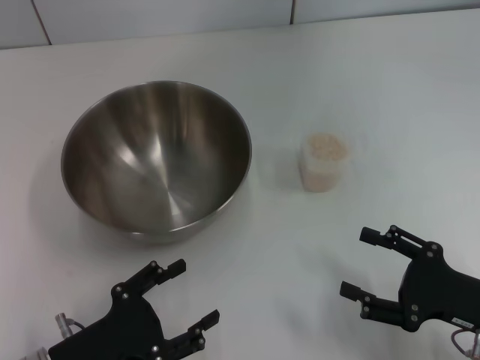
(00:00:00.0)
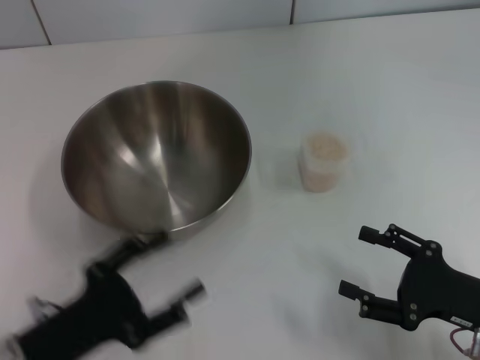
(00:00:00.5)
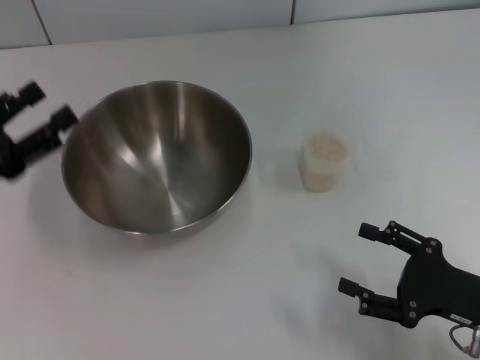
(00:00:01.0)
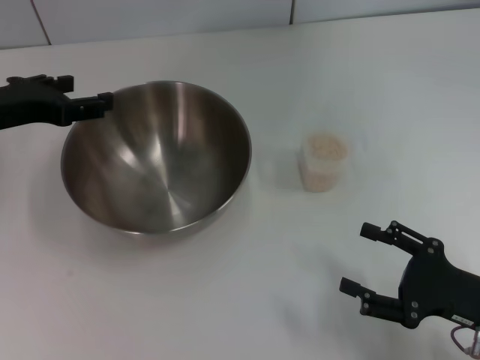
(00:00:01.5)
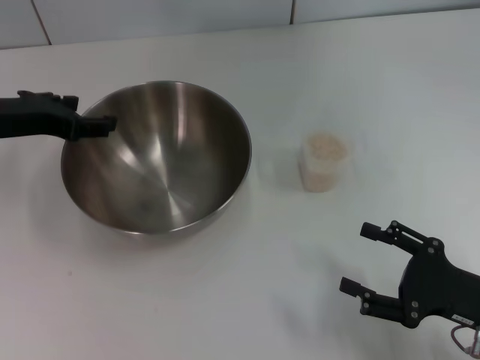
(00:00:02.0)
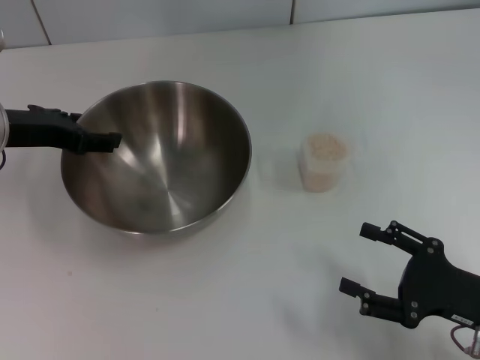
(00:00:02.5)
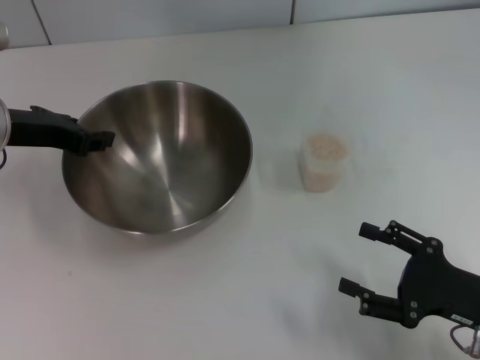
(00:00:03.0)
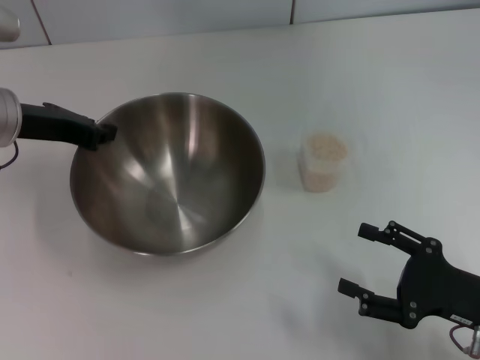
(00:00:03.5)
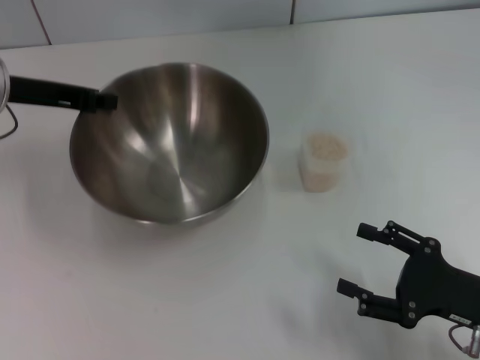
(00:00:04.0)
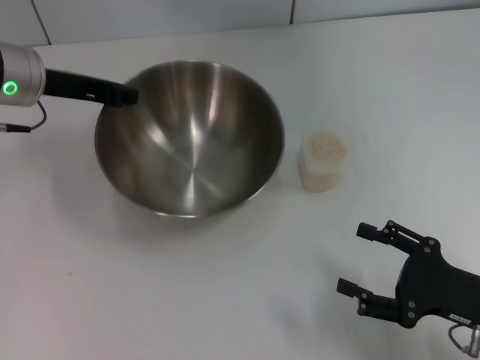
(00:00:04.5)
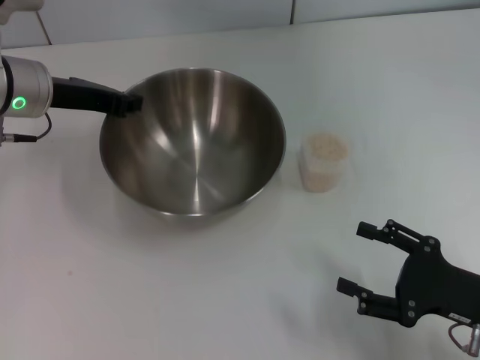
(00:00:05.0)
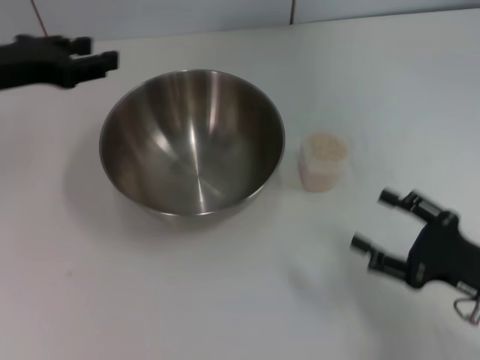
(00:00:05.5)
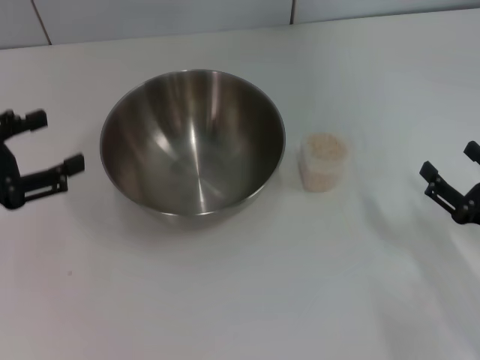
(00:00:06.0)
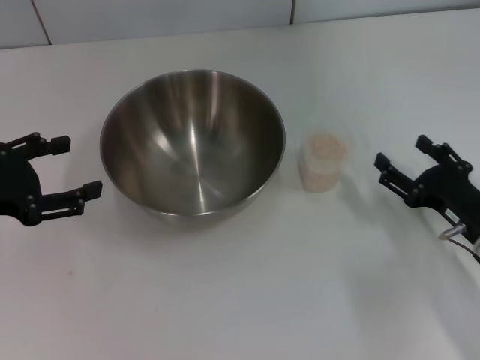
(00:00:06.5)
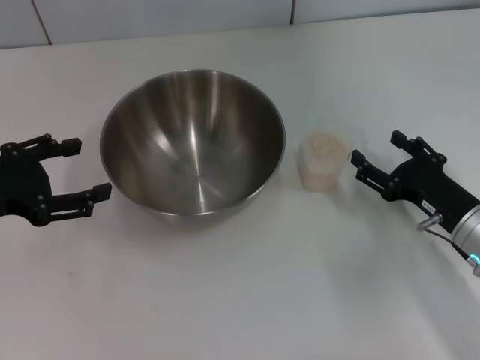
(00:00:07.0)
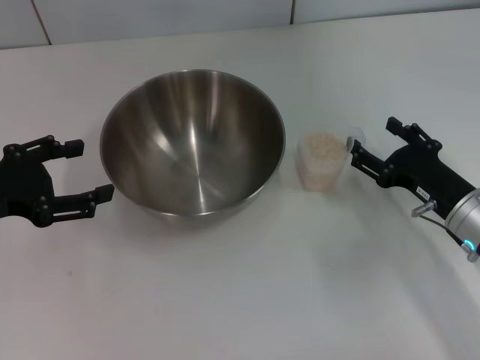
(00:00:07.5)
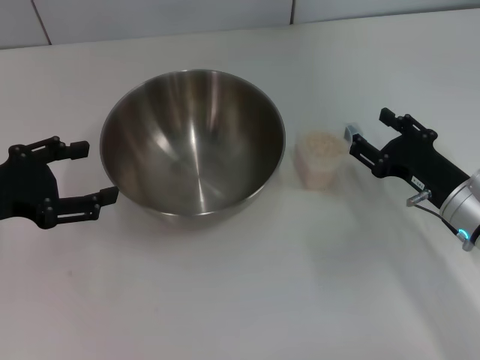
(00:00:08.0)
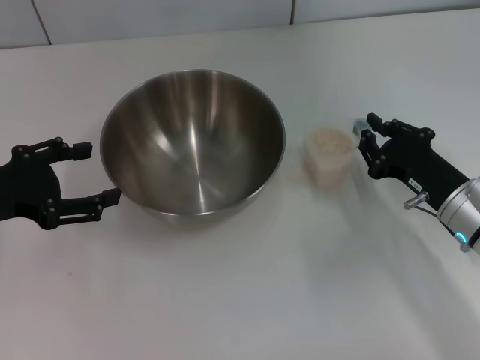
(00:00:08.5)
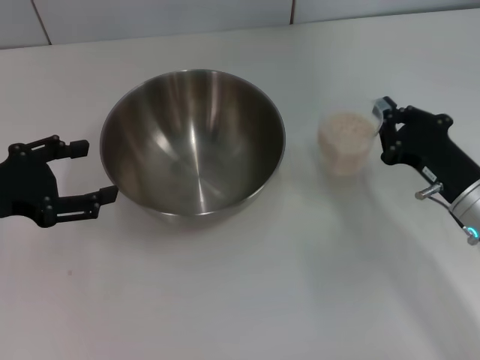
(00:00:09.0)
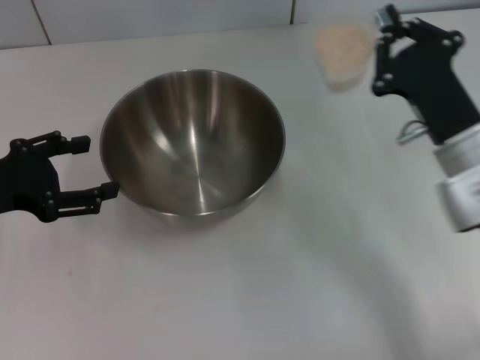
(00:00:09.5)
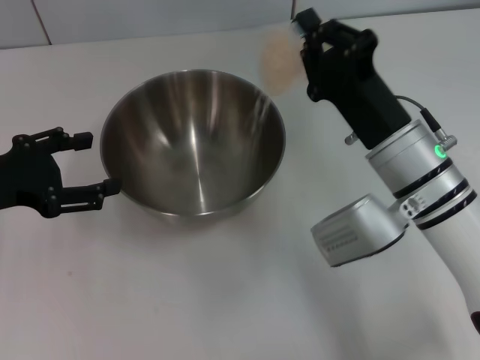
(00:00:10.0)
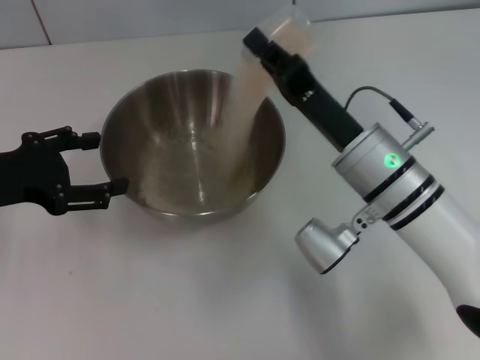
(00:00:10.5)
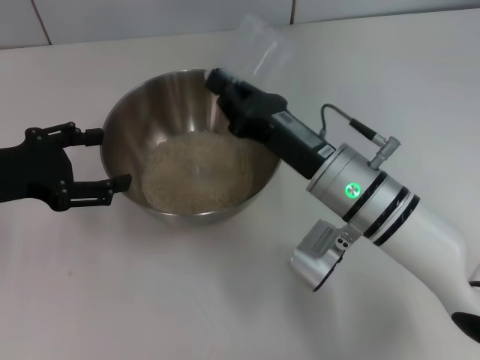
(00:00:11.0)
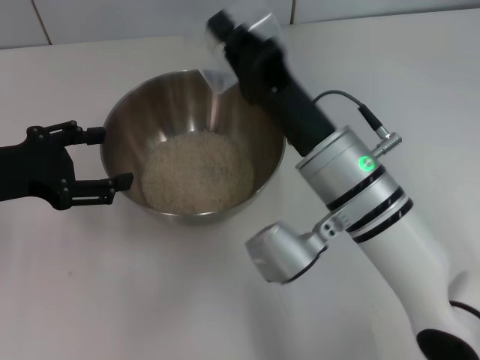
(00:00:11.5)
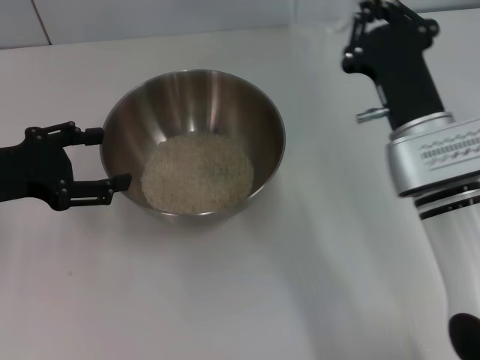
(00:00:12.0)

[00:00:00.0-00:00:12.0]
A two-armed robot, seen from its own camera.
Task of the whole recording: Place the bowl in the middle of the table with one hand and pour the rice from the grain cup into it with the other hand.
Step, 00:00:00.0 to 00:00:03.5: Pick up the bowl with the left gripper.
Step, 00:00:04.0 to 00:00:05.0: Place the bowl in the center of view with the left gripper.
Step, 00:00:05.5 to 00:00:09.0: Pick up the cup with rice in it with the right gripper.
Step, 00:00:09.5 to 00:00:11.5: Pour the rice from the cup into the bowl with the right gripper.
00:00:00.0 to 00:00:02.0: The left gripper moves forward and upward, some 25 cm.
00:00:02.0 to 00:00:04.0: The left gripper closes its fingers.
00:00:04.0 to 00:00:06.0: The left gripper shifts approximately 15 cm backward and to the left, and opens.
00:00:06.0 to 00:00:08.0: The right gripper moves forward and to the left, about 10 cm.
00:00:08.0 to 00:00:10.0: The right gripper travels to the left and upward by approximately 10 cm, and closes up.
00:00:10.0 to 00:00:12.0: The right gripper travels to the left and back again, about 5 cm each way.

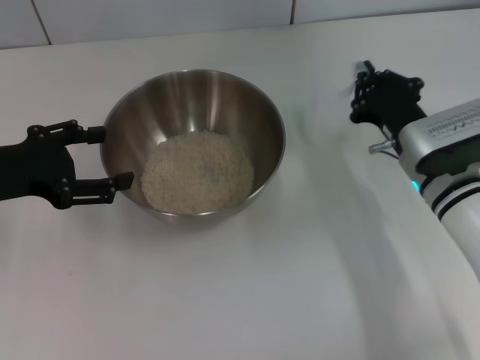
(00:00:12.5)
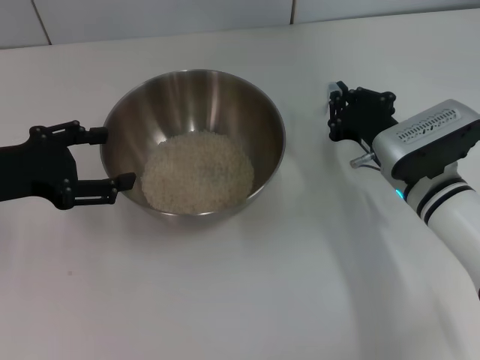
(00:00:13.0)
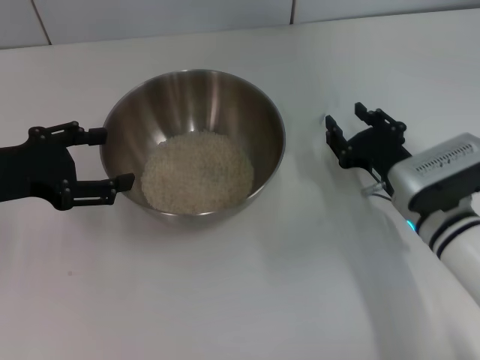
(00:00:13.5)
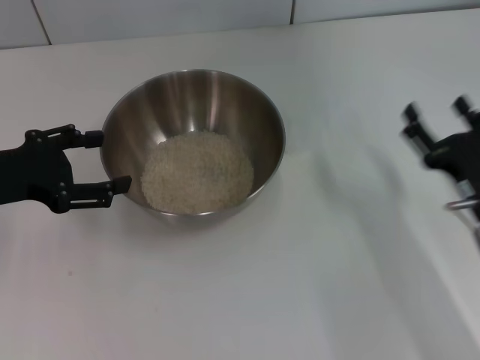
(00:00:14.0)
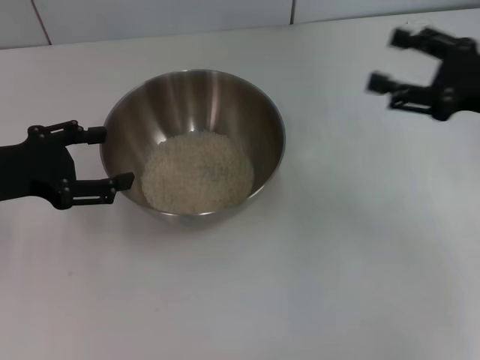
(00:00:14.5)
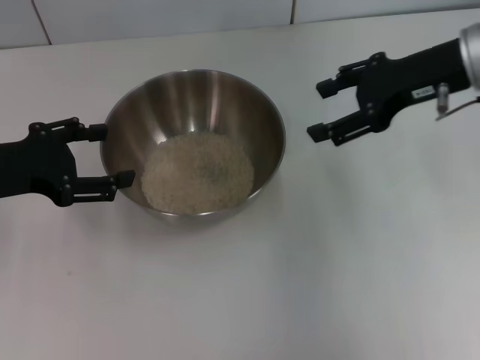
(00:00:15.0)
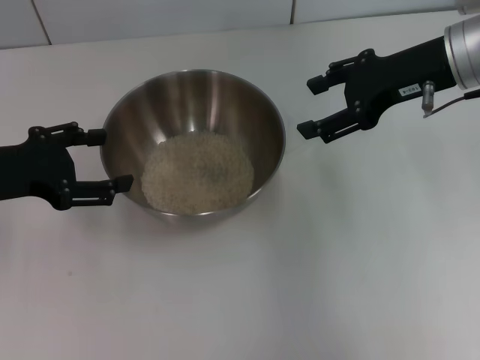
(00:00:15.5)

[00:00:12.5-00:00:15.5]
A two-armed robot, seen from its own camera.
Task of the whole recording: Place the bowl in the middle of the table with one hand and pour the rice from the grain cup into it with the other hand.
Step, 00:00:12.5 to 00:00:14.0: Place the cup on the table with the right gripper.
00:00:12.5 to 00:00:14.0: The right gripper goes roughly 10 cm backward, and opens.
00:00:14.0 to 00:00:15.5: The right gripper is displaced upward and forward by roughly 25 cm.
